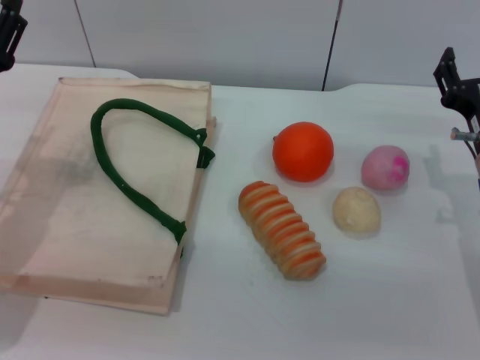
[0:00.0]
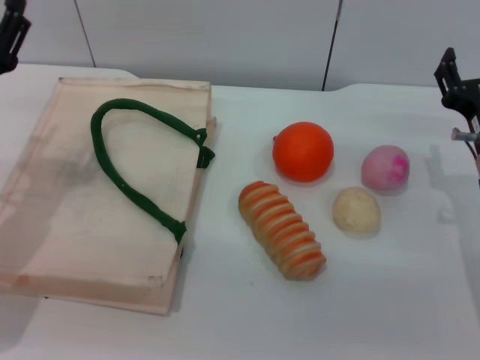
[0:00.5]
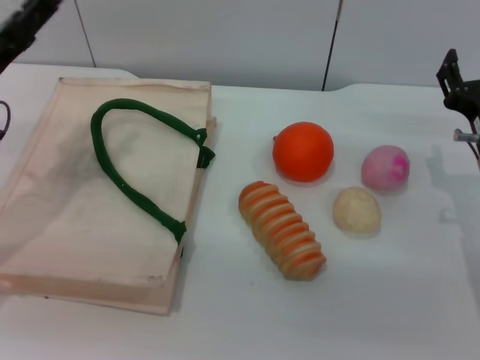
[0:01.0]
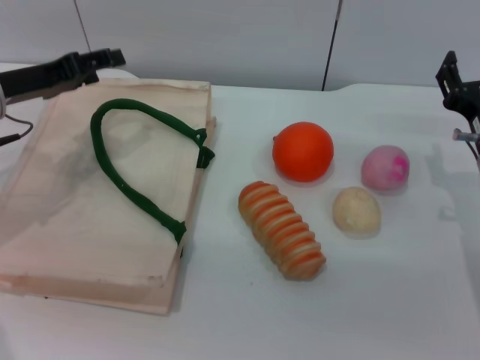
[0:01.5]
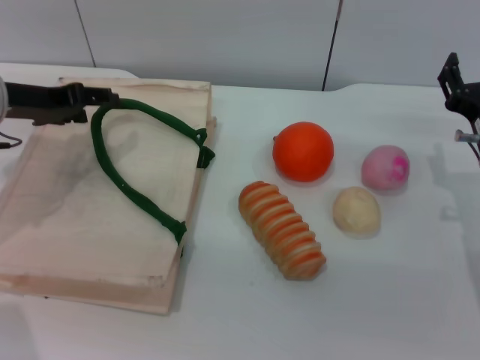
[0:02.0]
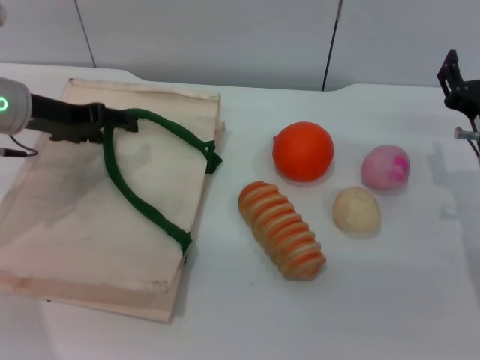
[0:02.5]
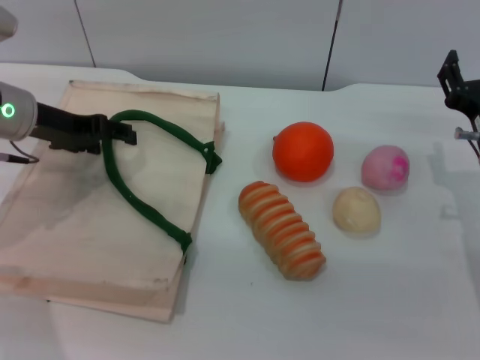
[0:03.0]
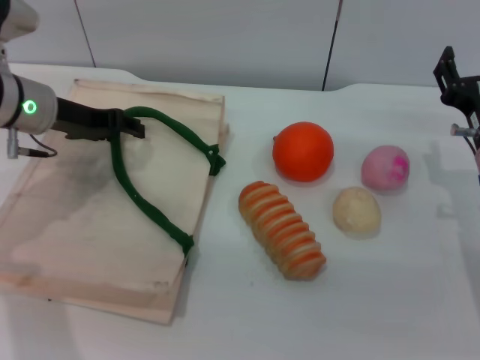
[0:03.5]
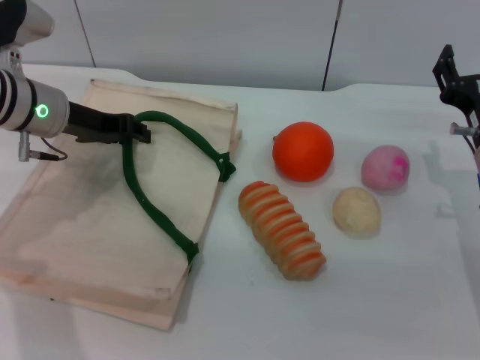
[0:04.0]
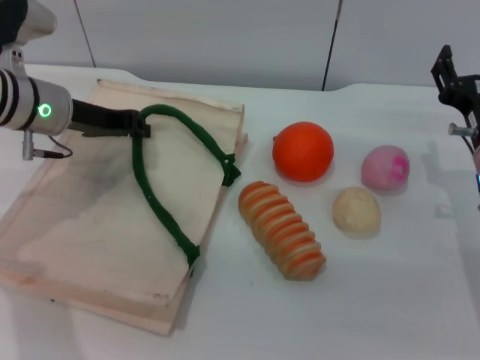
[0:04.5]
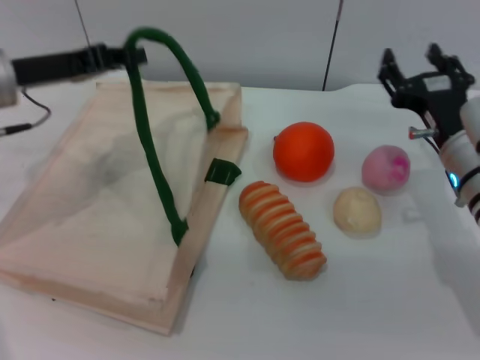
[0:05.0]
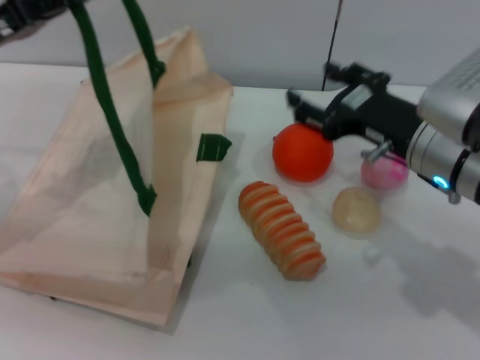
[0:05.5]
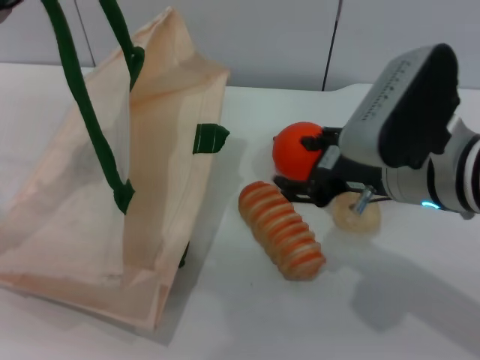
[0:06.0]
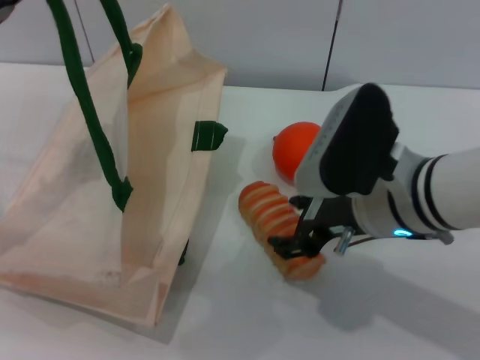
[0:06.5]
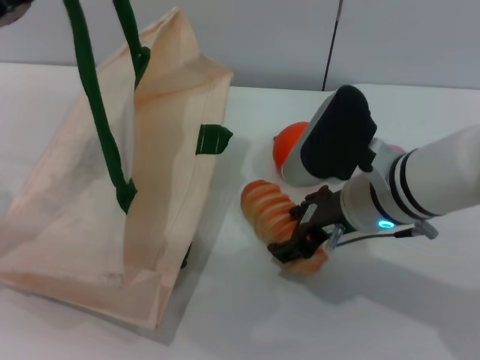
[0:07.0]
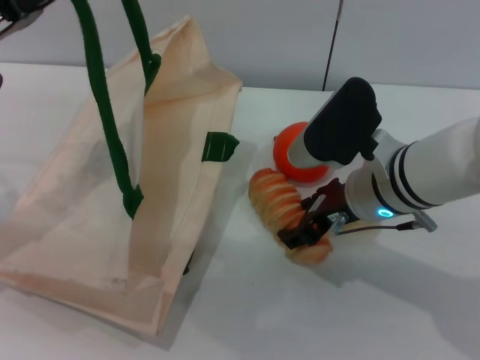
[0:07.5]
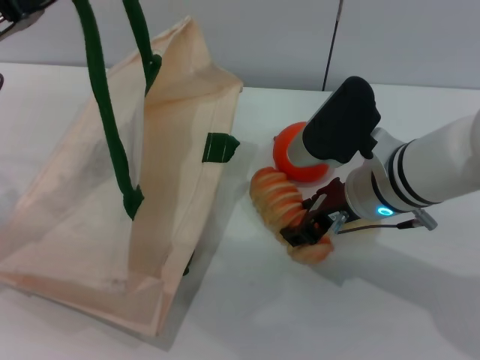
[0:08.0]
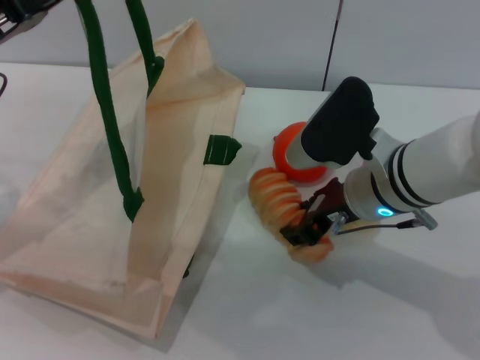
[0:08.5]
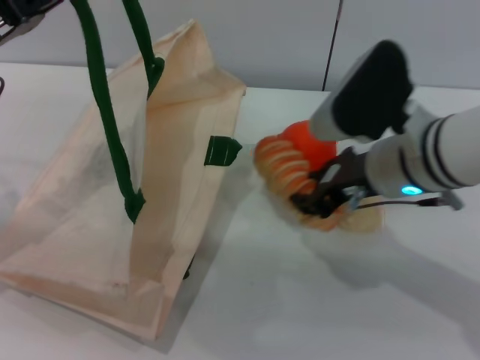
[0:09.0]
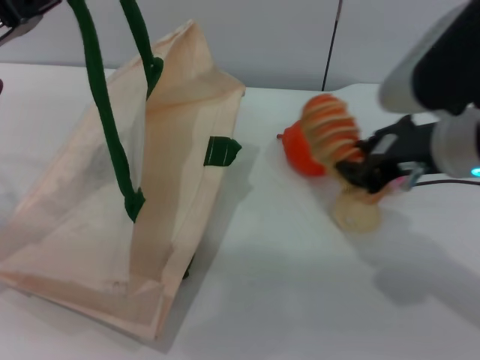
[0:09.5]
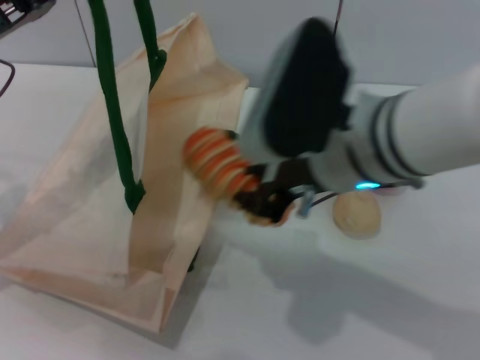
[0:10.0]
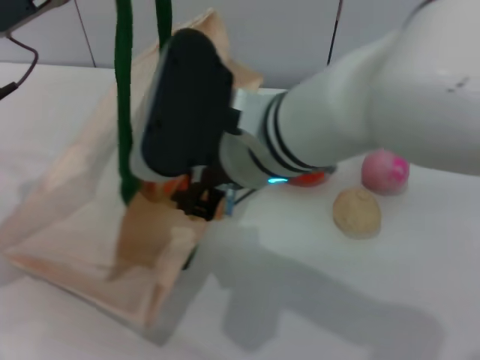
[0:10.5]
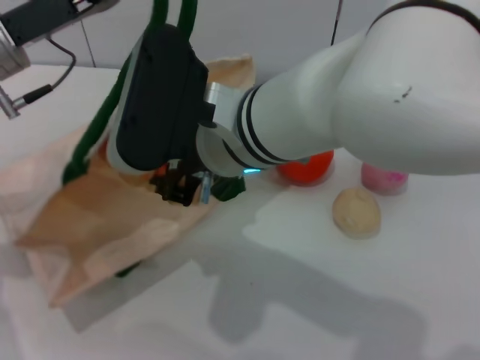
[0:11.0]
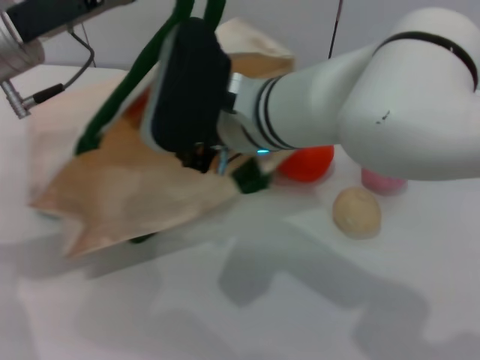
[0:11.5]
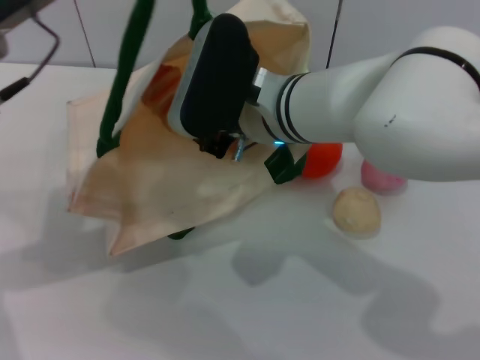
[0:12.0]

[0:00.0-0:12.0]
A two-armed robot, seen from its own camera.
Task of the whole recording: pick up the bread and egg yolk pastry from the table and place it in the white handbag.
Step, 0:00.0 to 0:05.0: Lift the woven bag with the left gripper to open it.
Step, 0:05.5 to 0:09.0: Pick up the bread with the right gripper.
0:00.0 to 0:02.0: The left gripper is displaced forward and upward by roughly 10 cm.
0:02.0 to 0:04.0: The left gripper moves some 5 cm, and closes its fingers.
0:04.0 to 0:06.0: The left gripper shifts some 15 cm backward, to the left and upward, and closes up; the right gripper is displaced to the left and upward by some 15 cm.
0:06.0 to 0:08.0: The right gripper ends up about 5 cm from where it was.
0:08.0 to 0:10.0: The right gripper travels upward by roughly 10 cm, and closes.
0:10.0 to 0:12.0: The right gripper goes some 10 cm forward and to the left. Meanwhile the left gripper ends up approximately 5 cm from where it was.

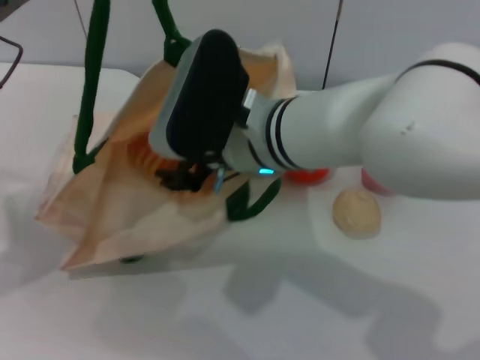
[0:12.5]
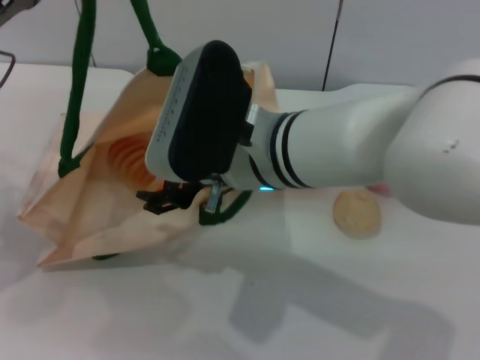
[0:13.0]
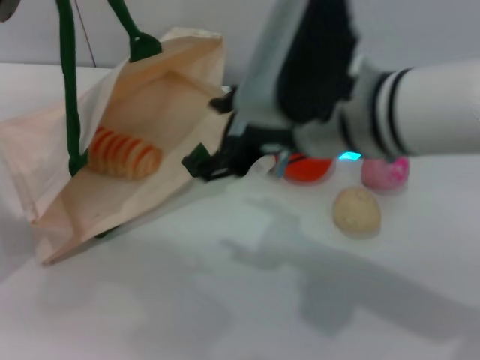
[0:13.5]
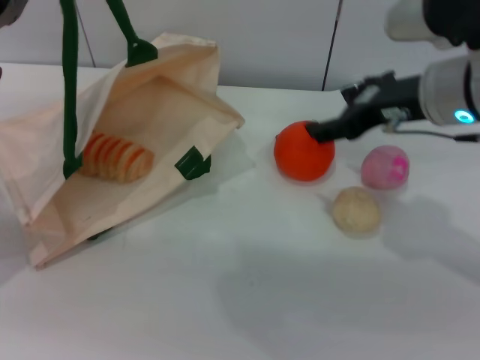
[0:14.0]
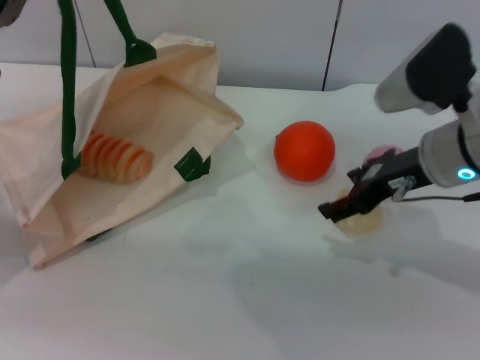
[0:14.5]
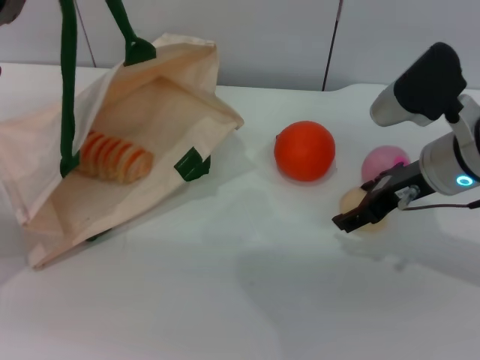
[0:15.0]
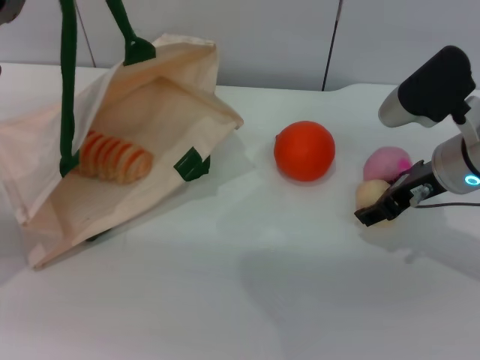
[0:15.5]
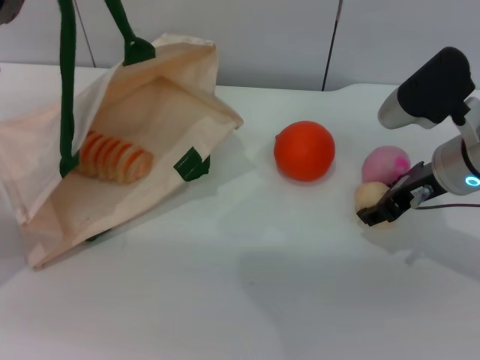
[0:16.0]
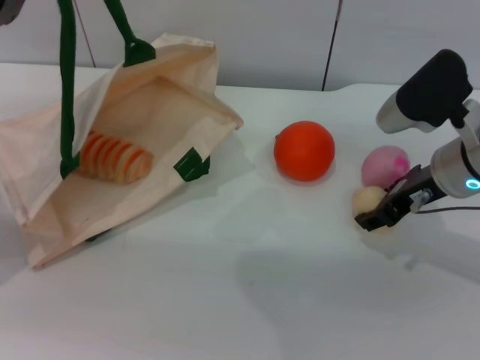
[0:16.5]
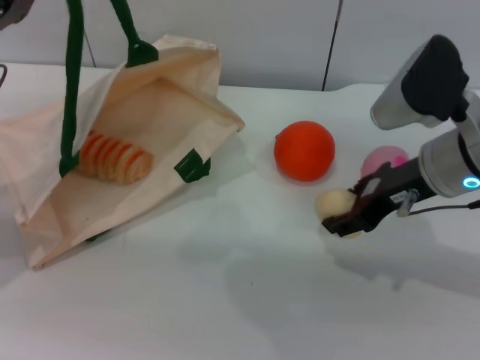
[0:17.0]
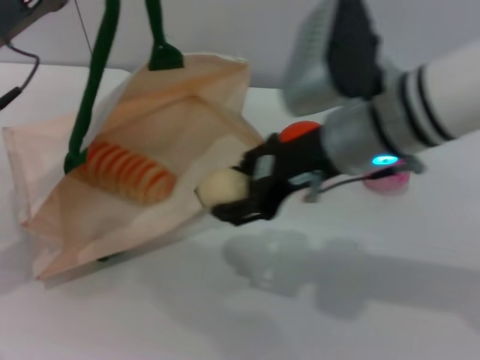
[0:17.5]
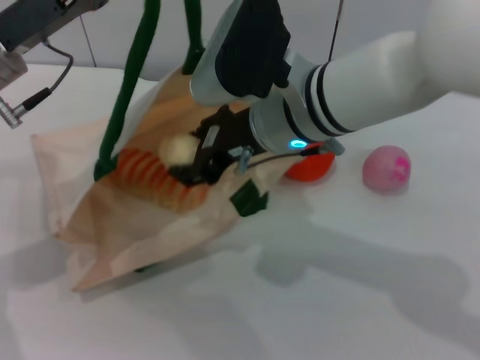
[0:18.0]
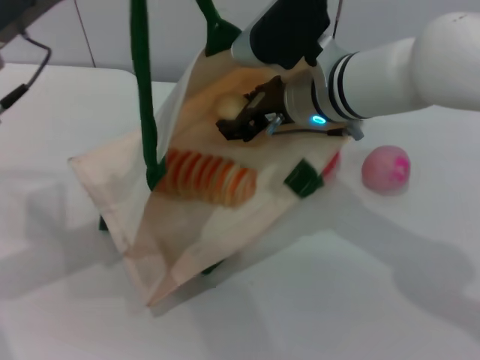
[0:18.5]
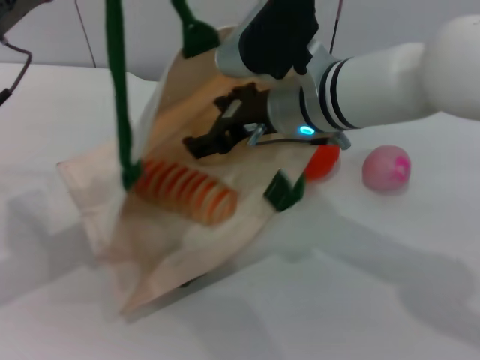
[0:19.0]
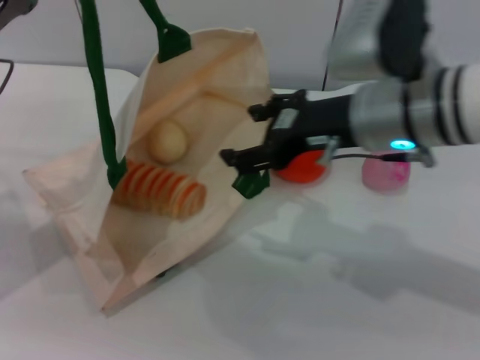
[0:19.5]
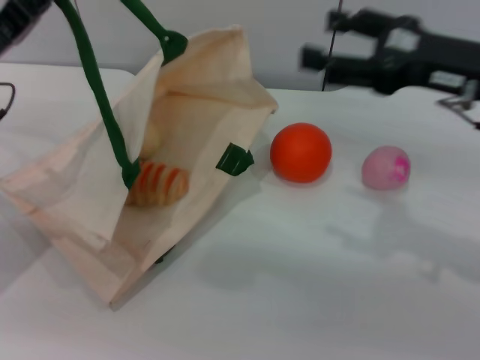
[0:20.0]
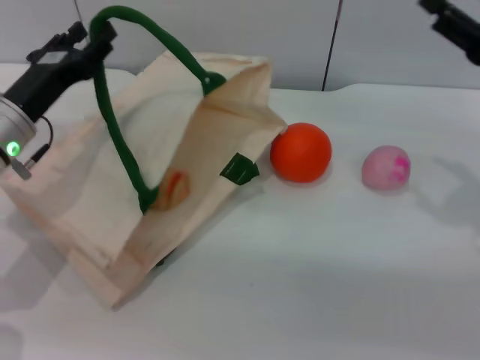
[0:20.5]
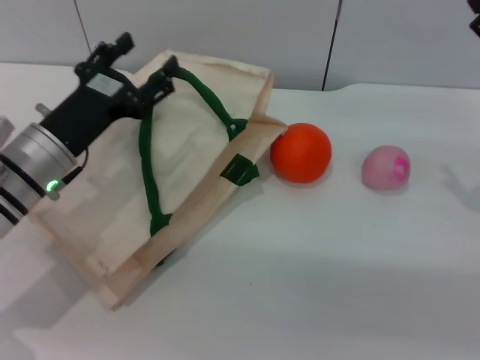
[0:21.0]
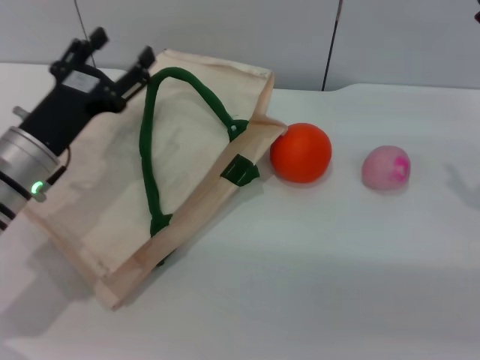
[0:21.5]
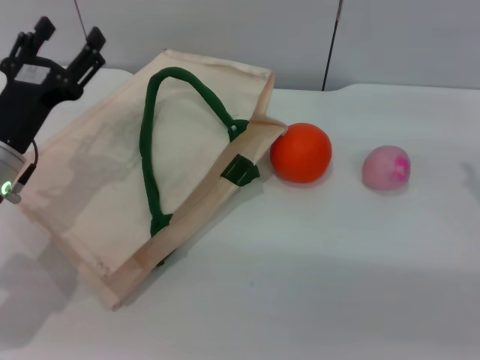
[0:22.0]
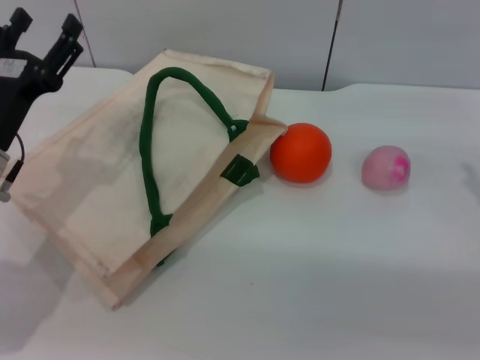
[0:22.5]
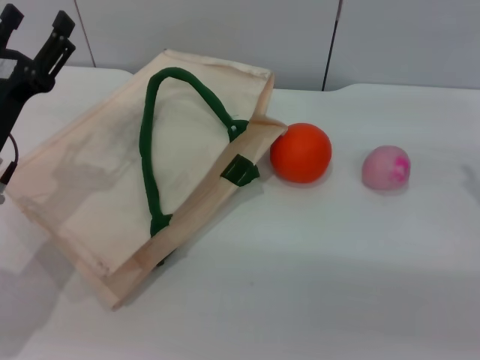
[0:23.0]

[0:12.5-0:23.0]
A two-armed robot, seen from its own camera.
Task of the whole recording: pick up the bread and egg yolk pastry from the table and place it in the white handbag.
Step, 0:13.5 to 0:17.0: Pick up the egg yolk pastry with the right gripper.
Step, 0:17.5 to 0:19.0: Place the egg yolk pastry into the woven bag with the right gripper.
Step, 0:20.0 to 0:21.0: Lower the woven bag with the left gripper to close it.
0:12.5 to 0:14.5: The right gripper travels to the right by approximately 20 cm, and opens up.
0:14.5 to 0:16.5: The right gripper closes up.
0:16.5 to 0:19.0: The right gripper moves to the left, about 15 cm.
0:19.0 to 0:21.0: The left gripper goes roughly 10 cm downward and to the right, and opens its fingers. The right gripper moves to the right, roughly 25 cm.
0:21.0 to 0:23.0: The left gripper ends up some 5 cm from where it was.

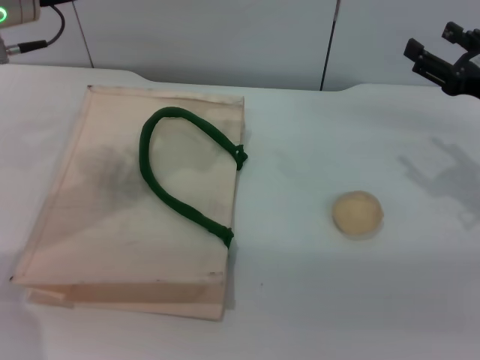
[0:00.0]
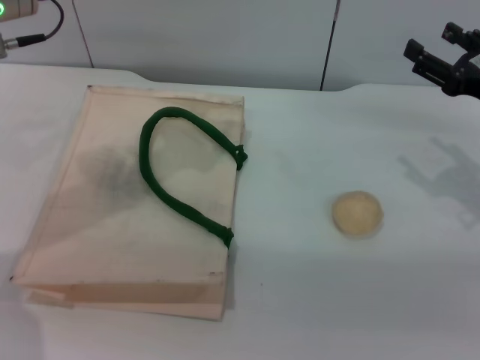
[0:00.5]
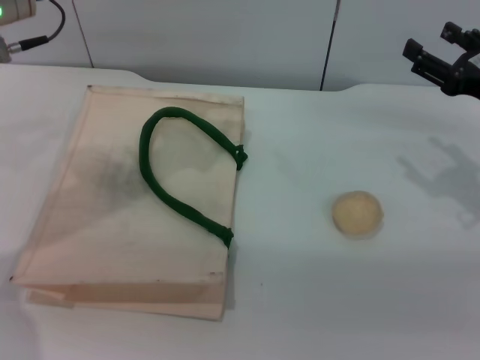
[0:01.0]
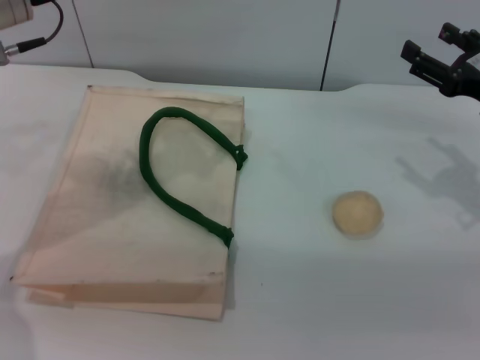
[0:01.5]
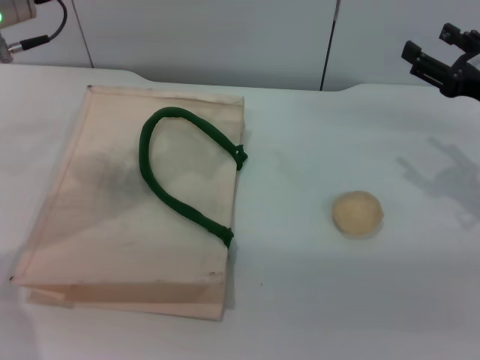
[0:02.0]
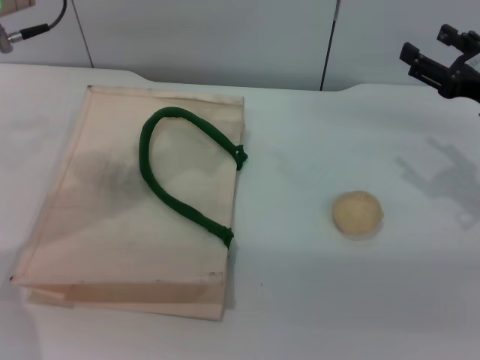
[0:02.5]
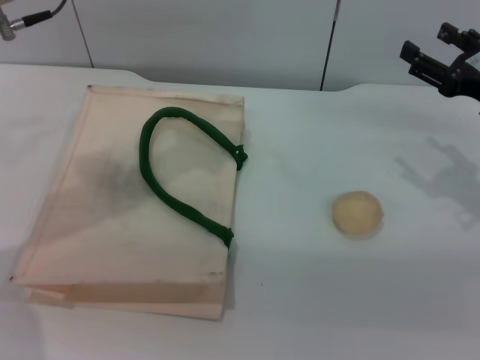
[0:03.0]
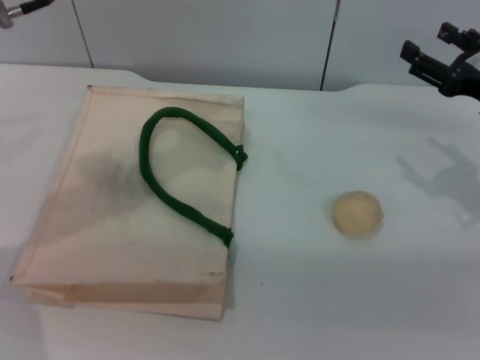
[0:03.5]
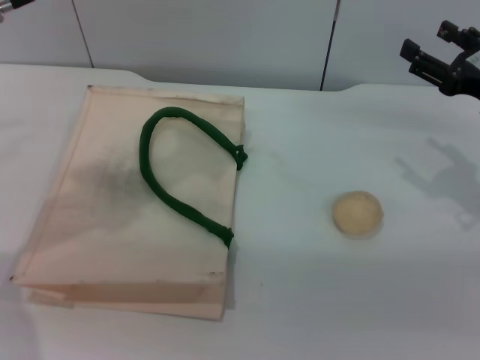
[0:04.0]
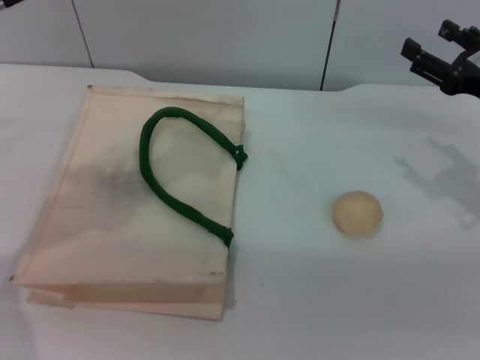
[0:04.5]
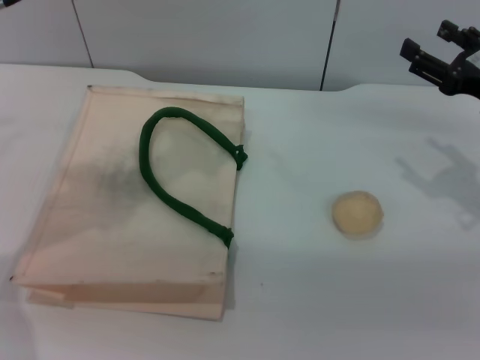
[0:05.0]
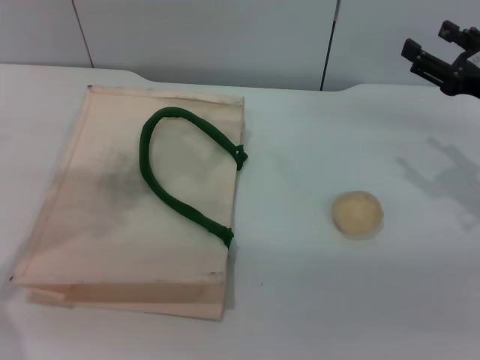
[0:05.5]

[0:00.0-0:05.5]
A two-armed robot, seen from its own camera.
Task of the whole recording: pick up the egg yolk pastry from the table and place it in the white handbag.
0:00.0 to 0:05.5: The grippers make only small movements.
